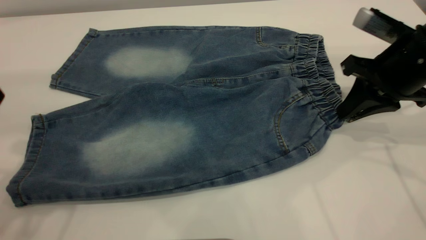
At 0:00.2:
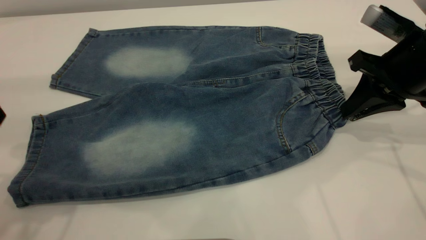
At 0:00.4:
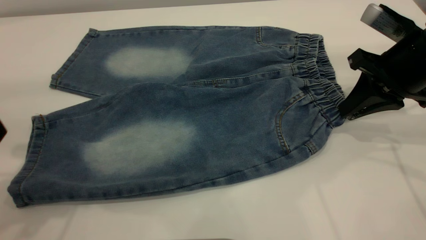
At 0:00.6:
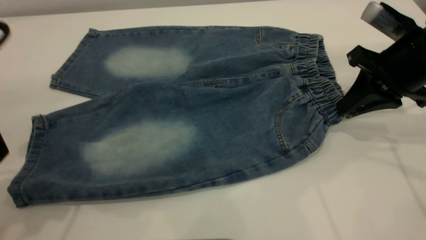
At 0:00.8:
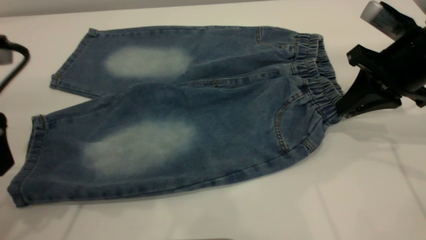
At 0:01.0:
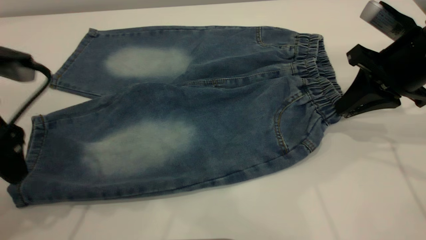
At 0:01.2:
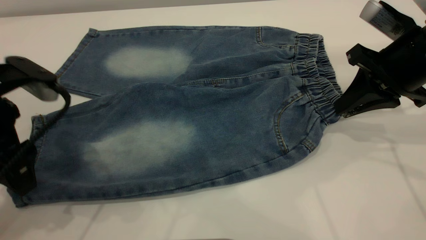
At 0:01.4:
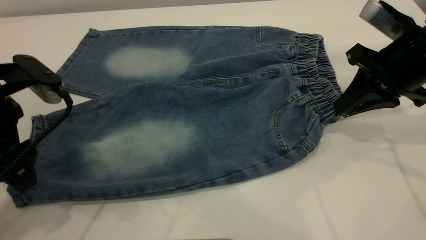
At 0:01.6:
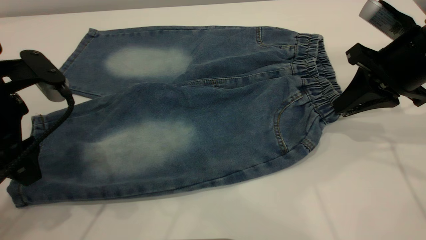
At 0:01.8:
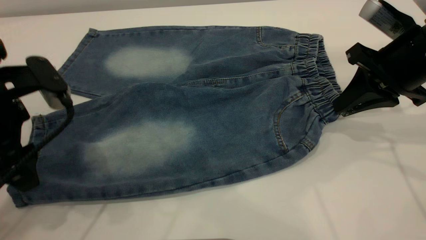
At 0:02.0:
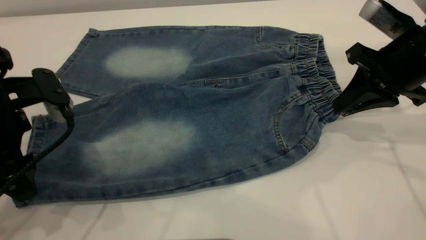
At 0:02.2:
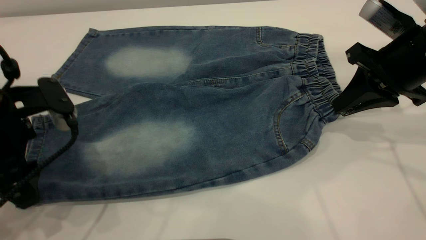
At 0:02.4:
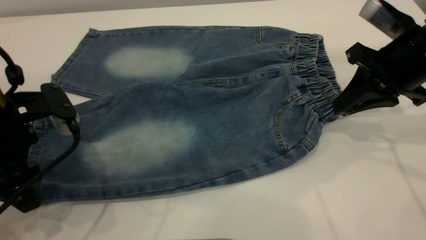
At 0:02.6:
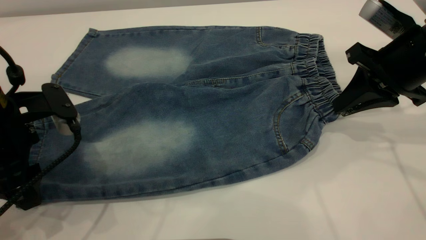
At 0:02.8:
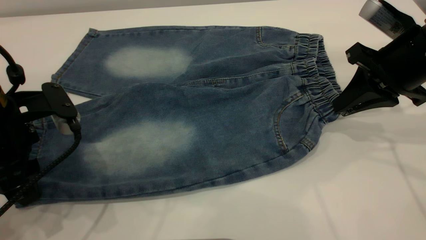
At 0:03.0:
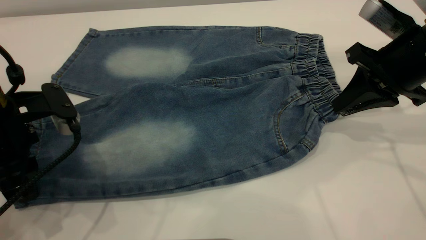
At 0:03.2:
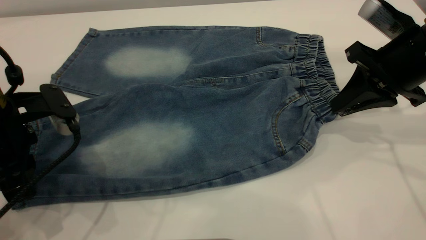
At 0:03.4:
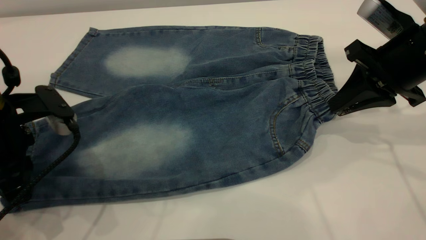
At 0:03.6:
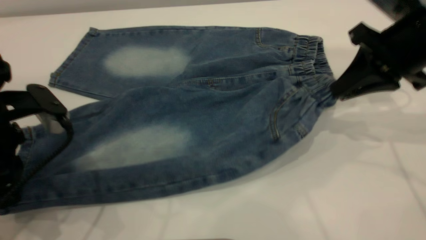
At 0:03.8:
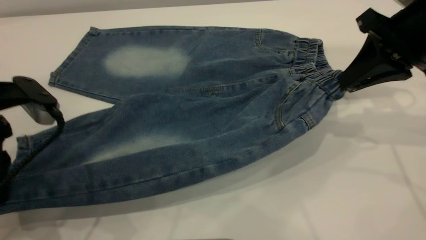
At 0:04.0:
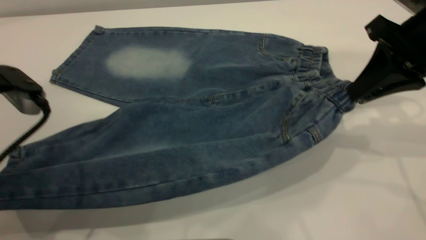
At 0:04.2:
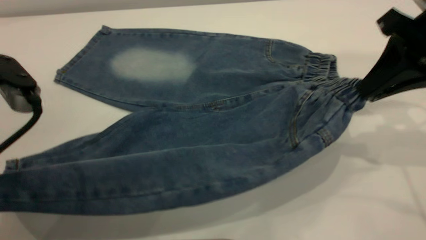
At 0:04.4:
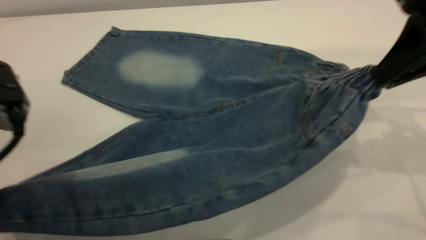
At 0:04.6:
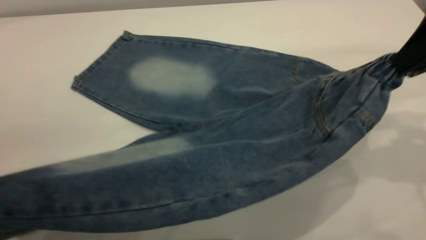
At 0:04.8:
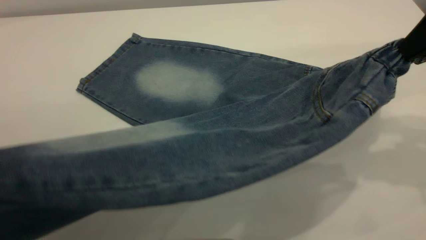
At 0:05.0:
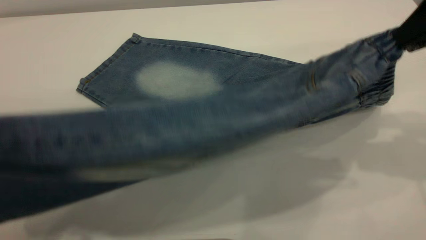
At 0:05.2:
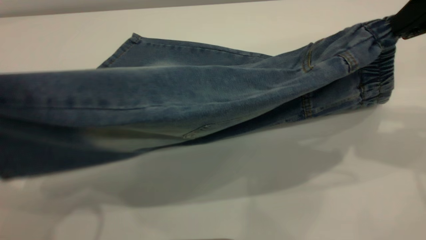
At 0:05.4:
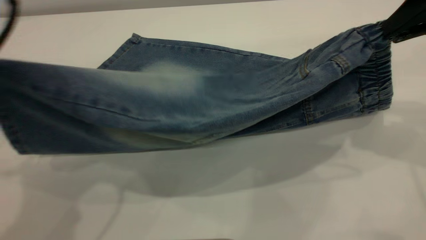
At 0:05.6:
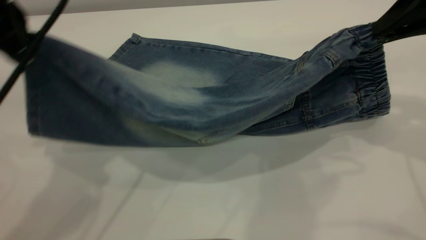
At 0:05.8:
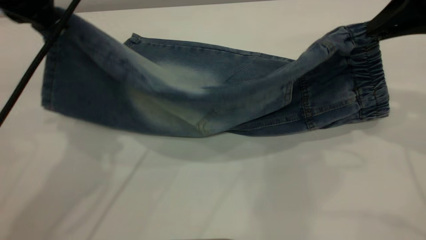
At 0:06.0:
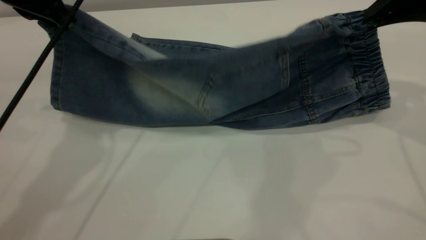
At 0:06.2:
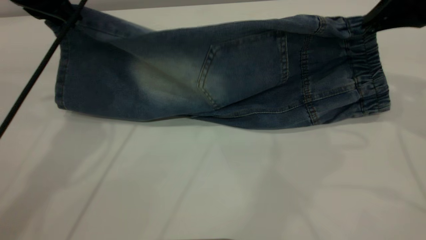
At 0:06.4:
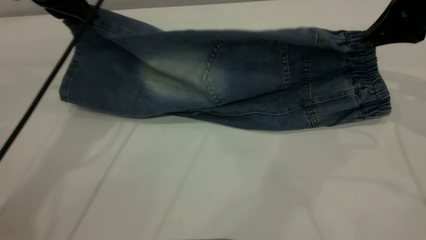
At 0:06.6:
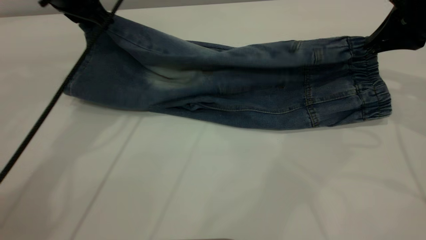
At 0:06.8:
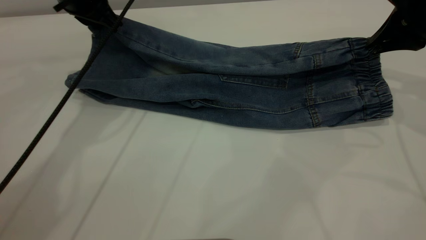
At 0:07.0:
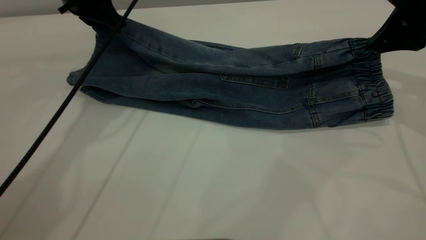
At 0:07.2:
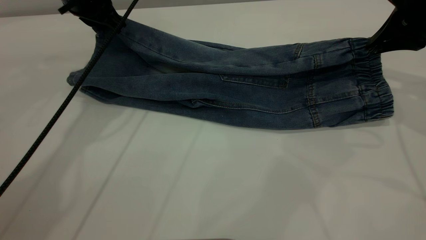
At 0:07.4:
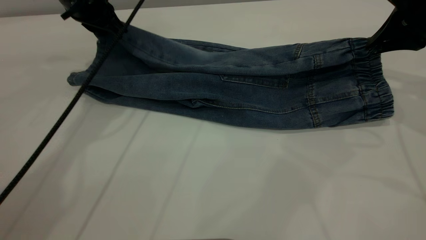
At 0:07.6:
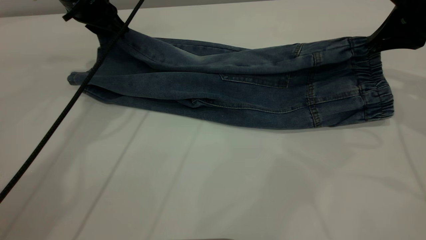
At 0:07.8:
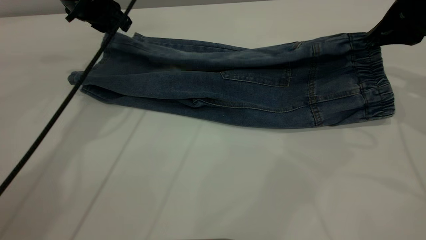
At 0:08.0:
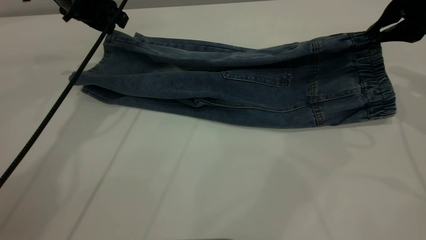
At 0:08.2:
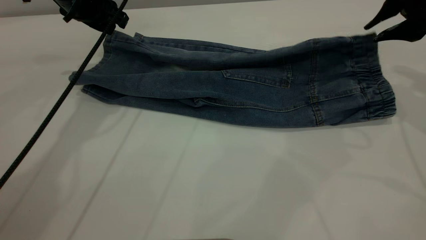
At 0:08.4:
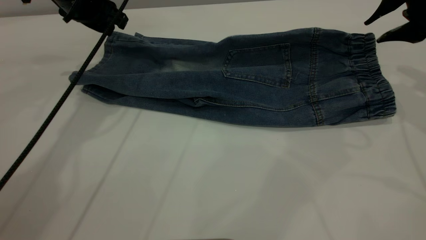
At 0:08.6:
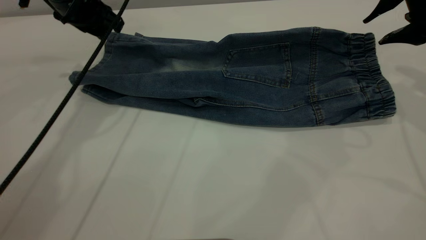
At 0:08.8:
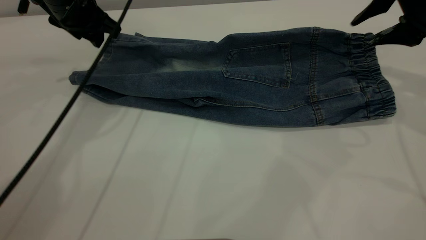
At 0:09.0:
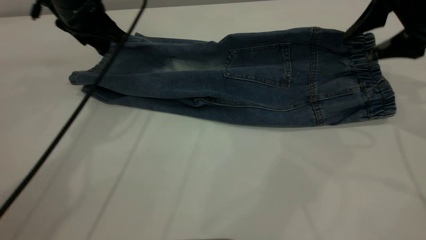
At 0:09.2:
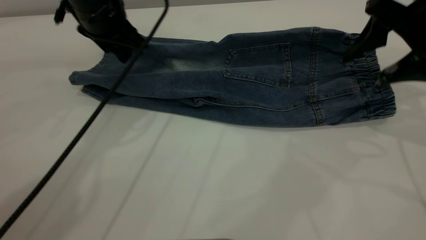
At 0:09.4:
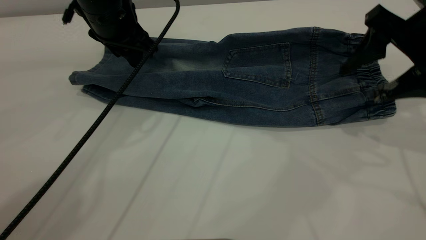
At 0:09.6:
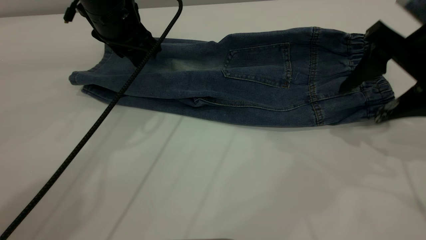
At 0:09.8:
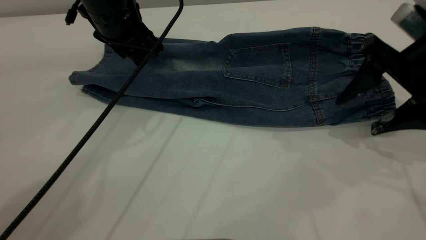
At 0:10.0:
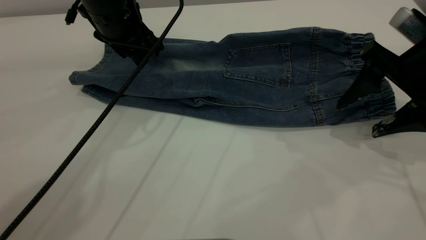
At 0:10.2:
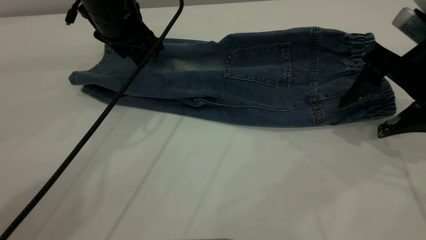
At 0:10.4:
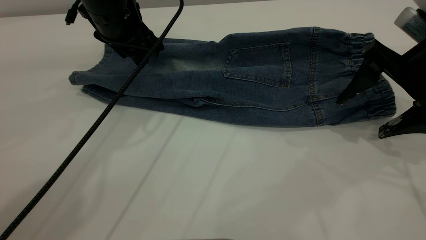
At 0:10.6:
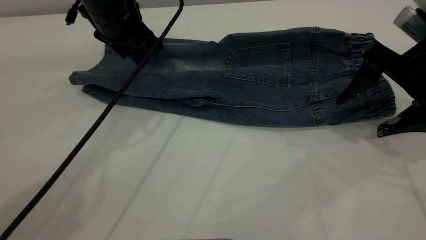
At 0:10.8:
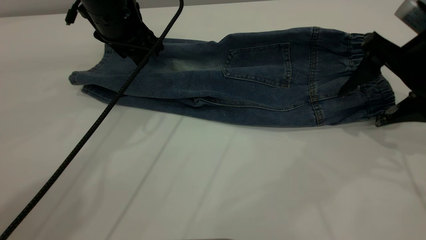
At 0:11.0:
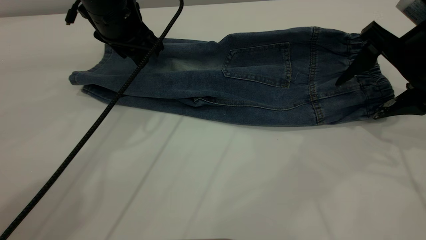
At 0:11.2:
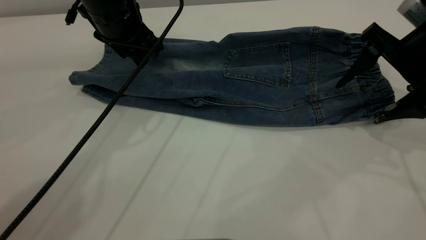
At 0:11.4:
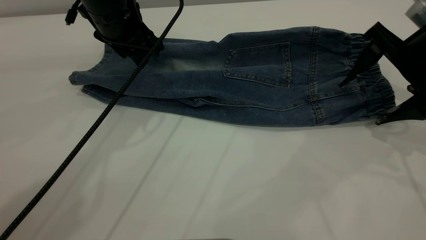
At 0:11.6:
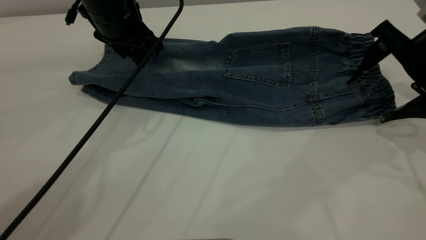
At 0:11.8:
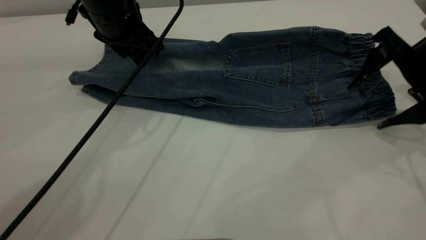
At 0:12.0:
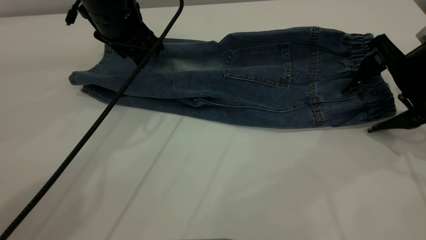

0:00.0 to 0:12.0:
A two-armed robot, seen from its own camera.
Step, 0:00.0 to 0:08.6: Fold the bottom of the pants upward.
0:00.0 to 0:01.6: The left gripper moves downward, approximately 10 cm.
0:01.6 to 0:03.0: The left gripper closes its fingers.
0:03.0 to 0:04.4: Both grippers move upward and backward, about 10 cm.
0:04.4 to 0:06.0: The right gripper travels forward by some 5 cm. Meanwhile the left gripper heads forward, covering some 20 cm.
0:06.0 to 0:07.6: The right gripper shifts by roughly 5 cm. Meanwhile the left gripper goes approximately 10 cm forward and downward, and opens up.
0:07.6 to 0:09.0: The right gripper opens its fingers.
0:09.0 to 0:10.4: The right gripper moves some 5 cm.

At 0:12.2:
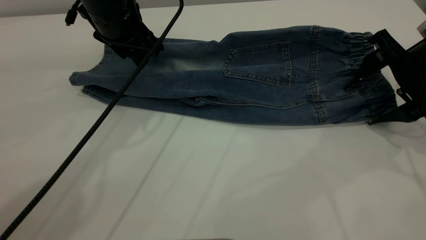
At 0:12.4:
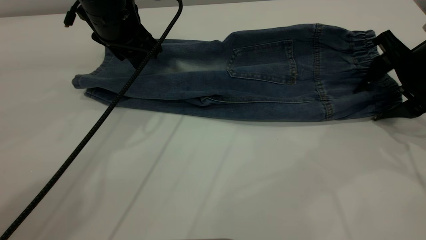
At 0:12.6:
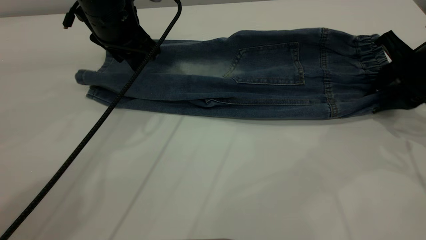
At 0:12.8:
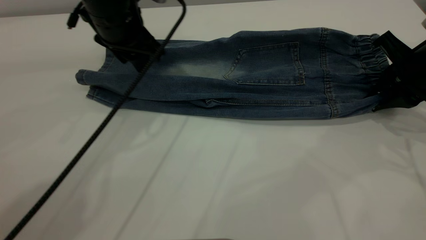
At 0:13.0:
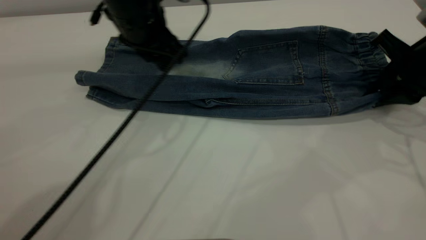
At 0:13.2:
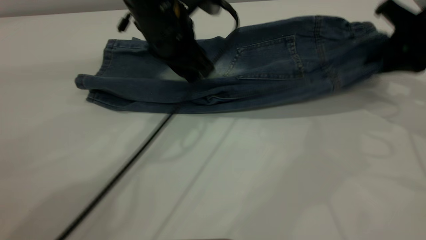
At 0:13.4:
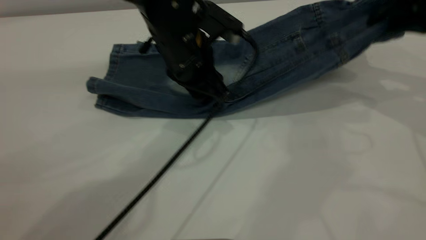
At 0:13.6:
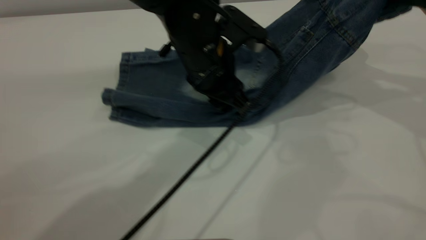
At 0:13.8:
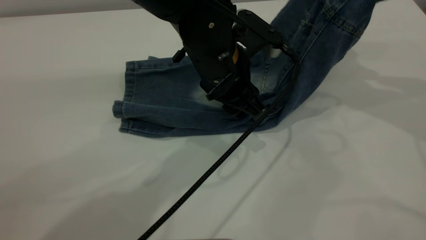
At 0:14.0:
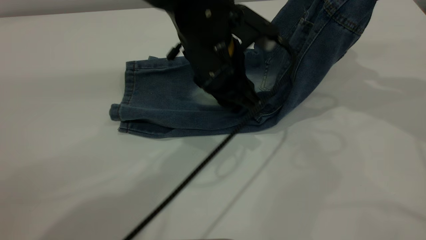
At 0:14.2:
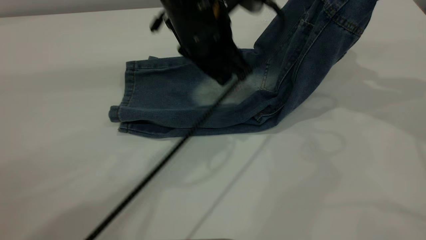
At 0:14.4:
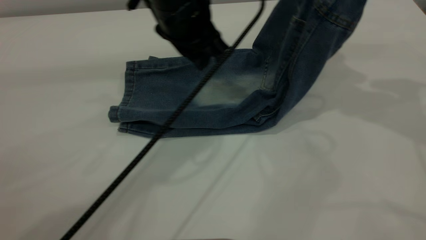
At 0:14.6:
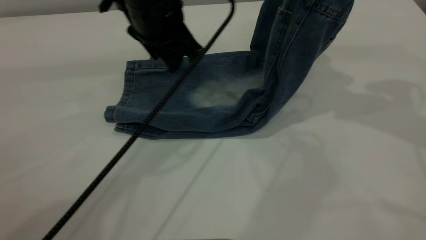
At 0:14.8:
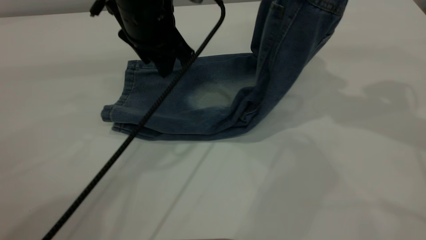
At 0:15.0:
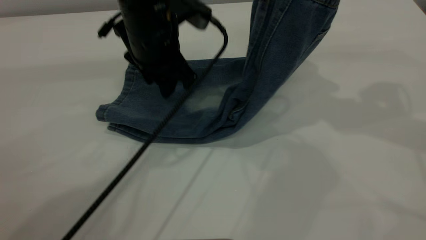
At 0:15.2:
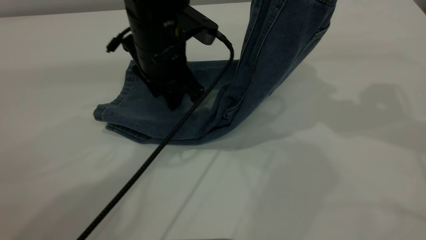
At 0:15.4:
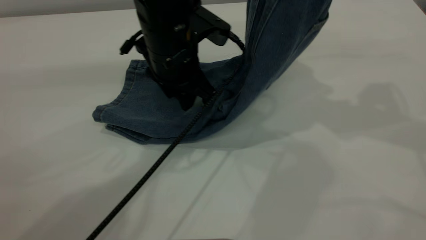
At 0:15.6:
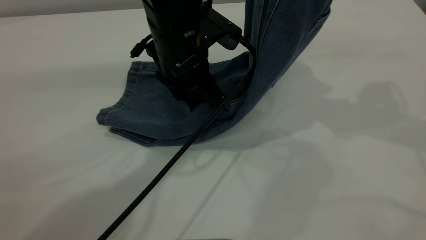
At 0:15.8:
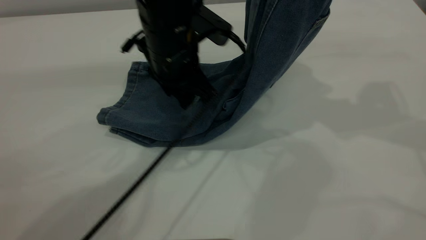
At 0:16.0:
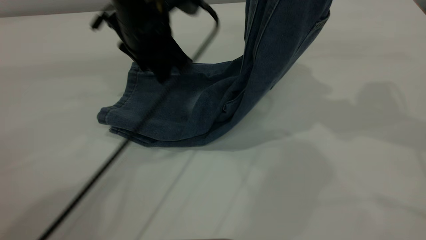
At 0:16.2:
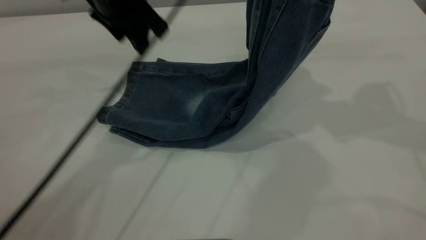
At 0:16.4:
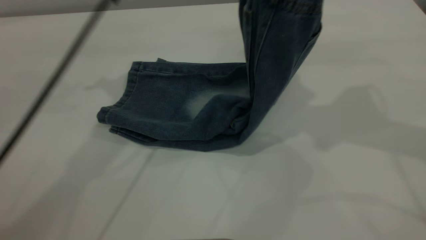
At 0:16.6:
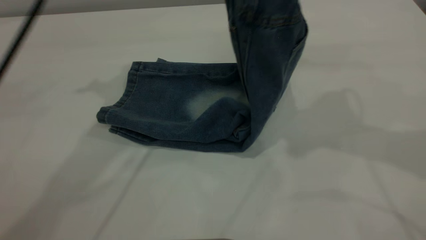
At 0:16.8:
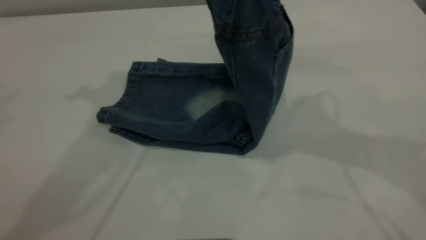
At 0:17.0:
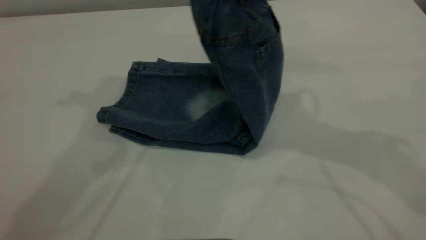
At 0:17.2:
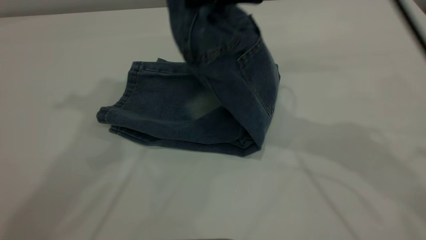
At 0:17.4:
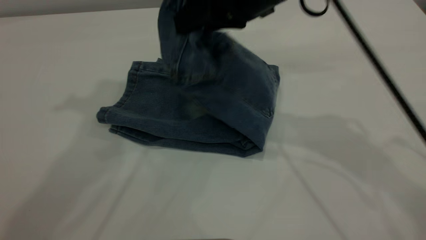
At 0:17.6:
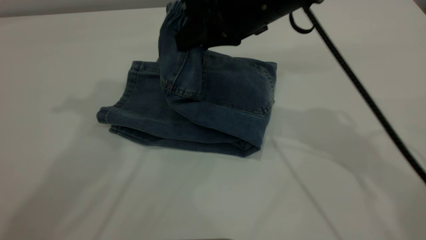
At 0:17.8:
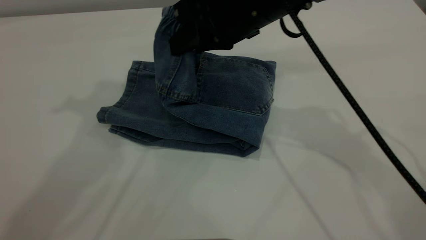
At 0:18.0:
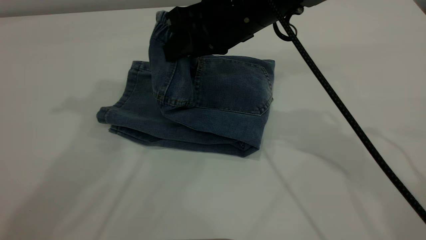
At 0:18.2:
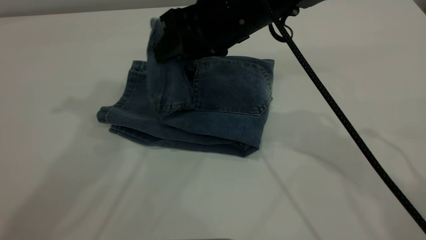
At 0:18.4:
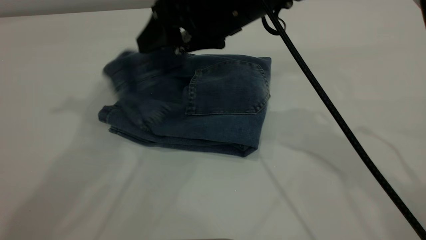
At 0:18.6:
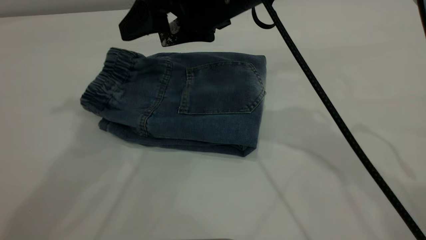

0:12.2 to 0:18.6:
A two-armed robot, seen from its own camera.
Step, 0:12.2 to 0:18.4: Fold your pants from right to left.
0:12.2 to 0:13.8: The left gripper moves to the right and backward, about 15 cm. Meanwhile the right gripper moves upward, some 15 cm, and closes its fingers.
0:13.8 to 0:15.4: The left gripper heads to the left, covering roughly 5 cm. Meanwhile the right gripper moves roughly 5 cm.
0:15.4 to 0:17.0: The right gripper moves to the left, about 15 cm, while the left gripper is displaced upward and to the left by roughly 30 cm.
0:17.0 to 0:18.6: The right gripper heads to the left and downward, covering roughly 10 cm, and opens.
